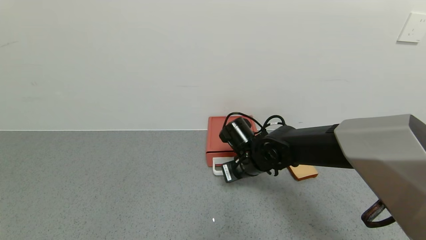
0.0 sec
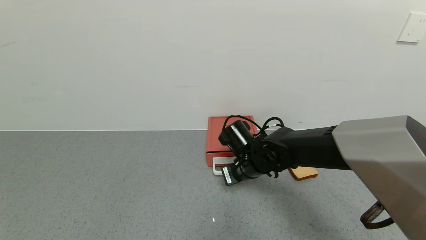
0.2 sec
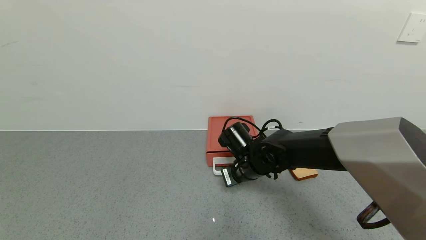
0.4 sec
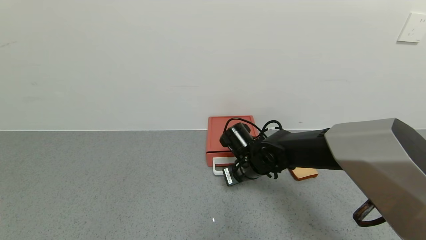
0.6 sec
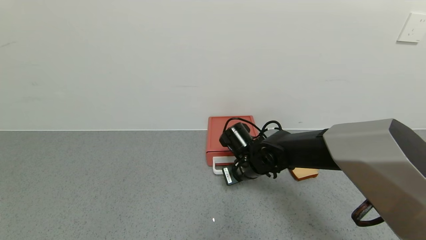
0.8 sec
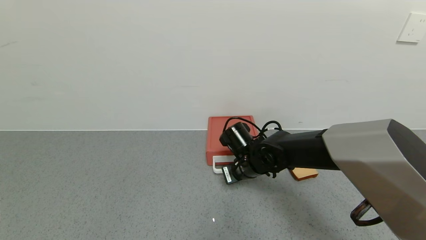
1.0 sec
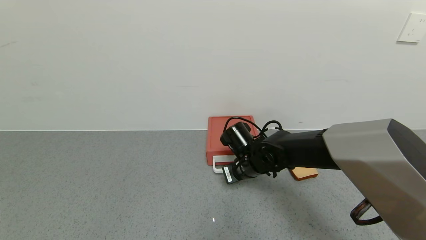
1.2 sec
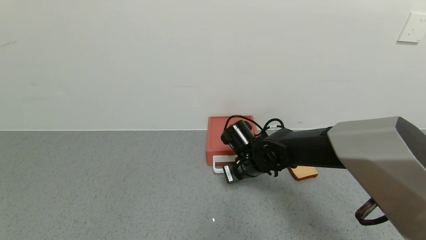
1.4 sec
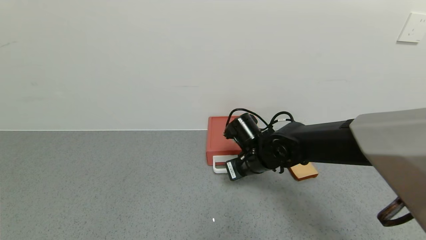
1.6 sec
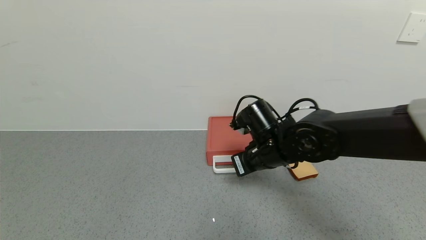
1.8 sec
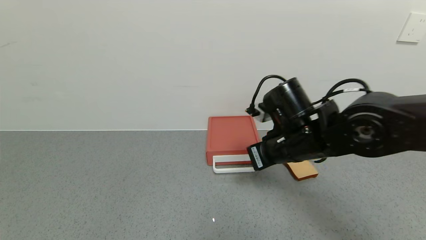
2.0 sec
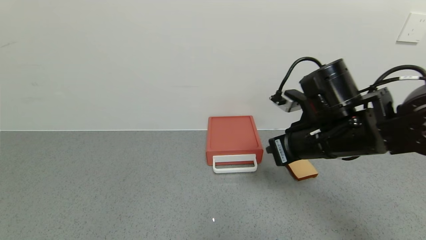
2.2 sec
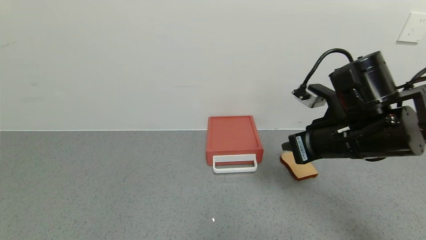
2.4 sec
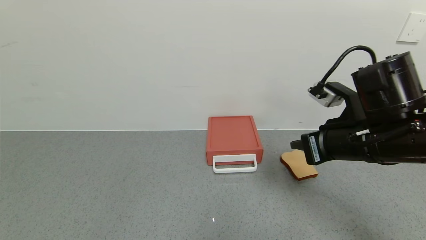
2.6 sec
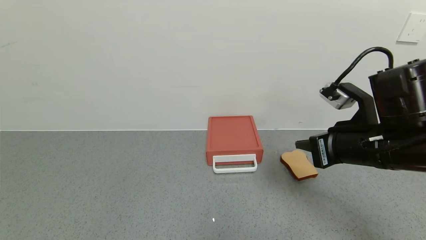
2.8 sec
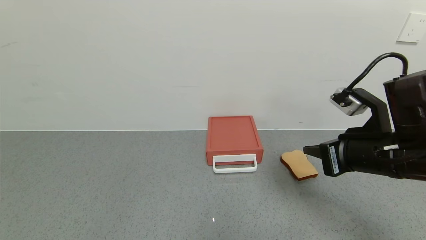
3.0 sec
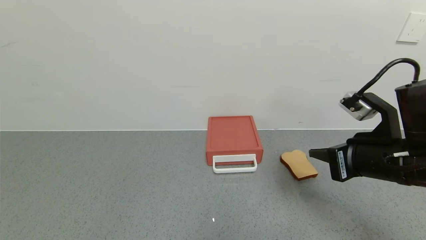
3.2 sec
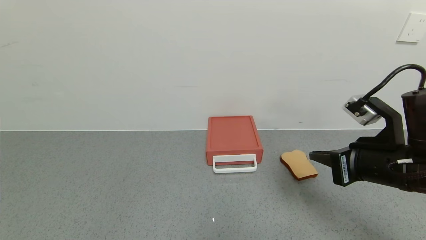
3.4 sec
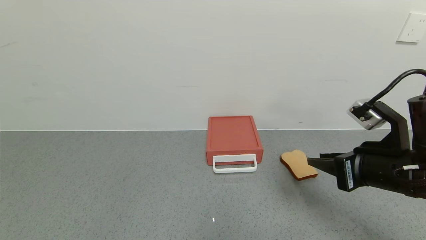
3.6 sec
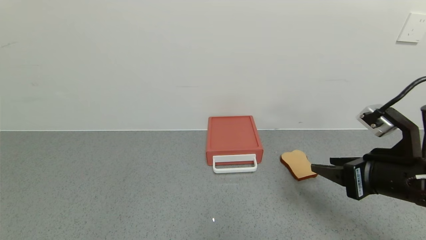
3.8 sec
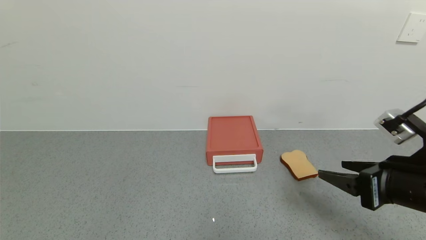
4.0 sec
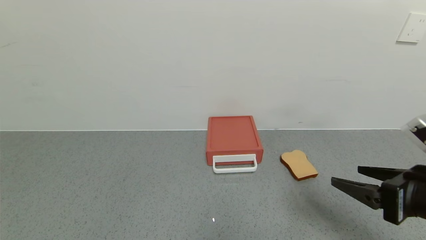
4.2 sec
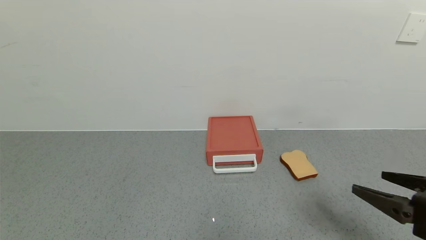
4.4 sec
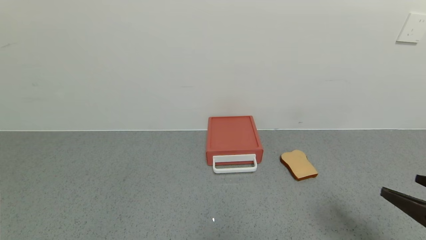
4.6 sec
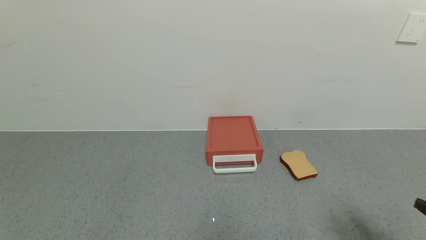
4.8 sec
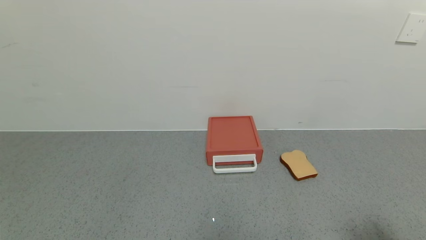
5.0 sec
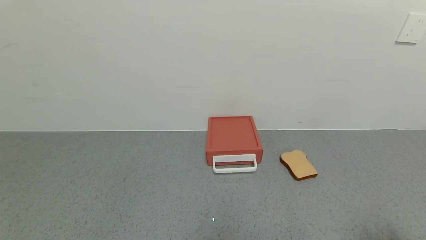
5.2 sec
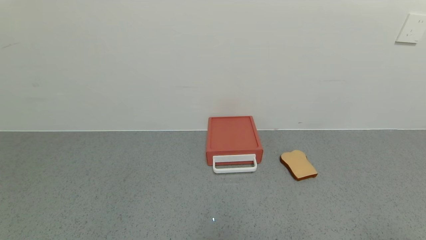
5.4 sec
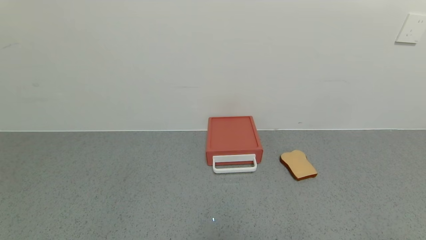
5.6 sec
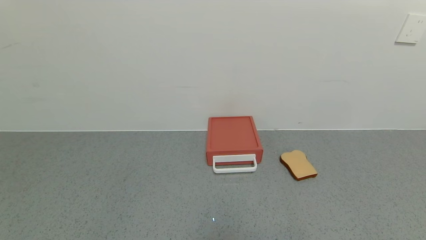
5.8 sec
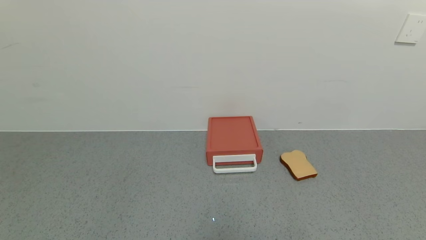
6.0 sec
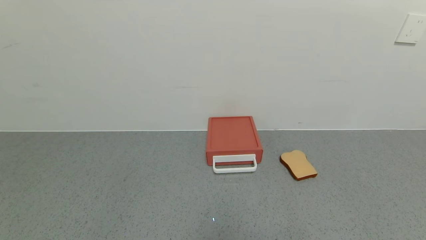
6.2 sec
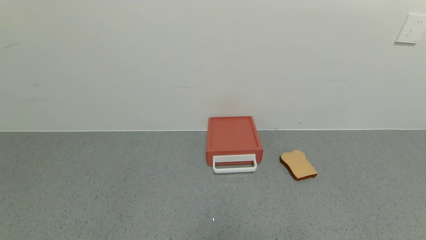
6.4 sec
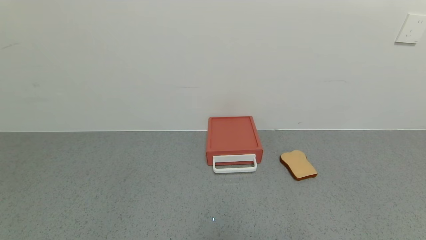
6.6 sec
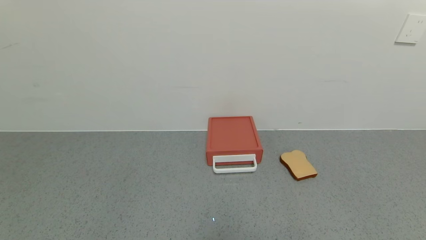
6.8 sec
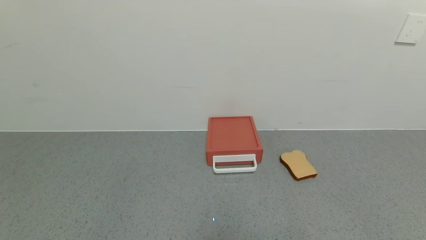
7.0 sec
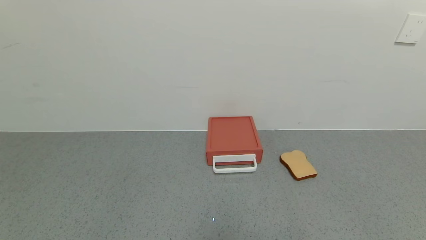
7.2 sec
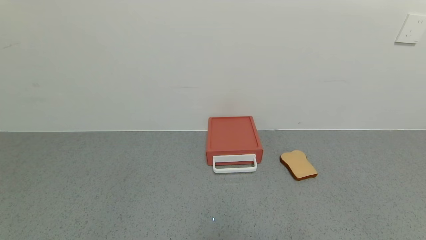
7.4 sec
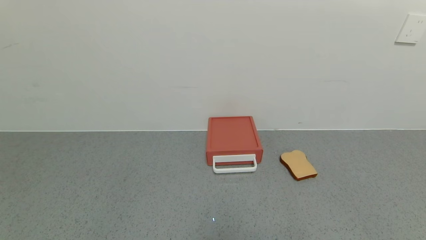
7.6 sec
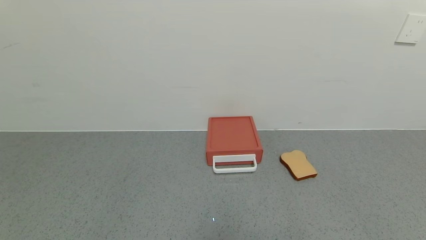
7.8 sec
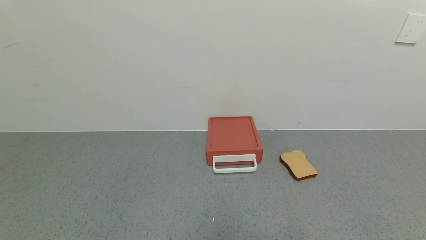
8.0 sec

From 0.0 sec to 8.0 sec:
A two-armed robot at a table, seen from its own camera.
Task of the whole recording: use the gripper to open the drawer and close the red drawer.
From 0.0 sec to 1.6 sec: The grippers move only a little.
From 1.6 sec to 3.2 sec: The right gripper moves to the right, backward and upward, some 25 cm.
From 3.2 sec to 4.8 sec: The right gripper heads backward and to the right, covering roughly 20 cm, and opens up.
From 4.8 sec to 6.4 sec: The right gripper is displaced backward and downward by roughly 15 cm.

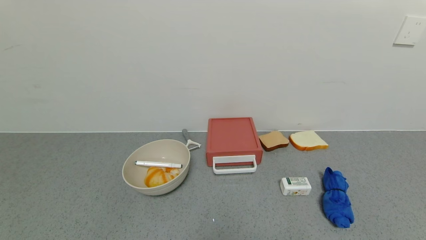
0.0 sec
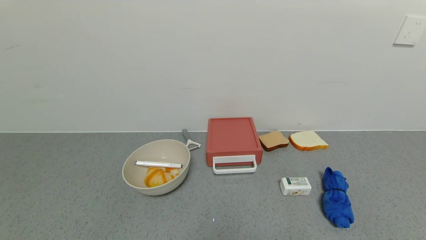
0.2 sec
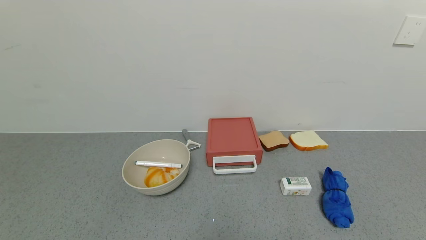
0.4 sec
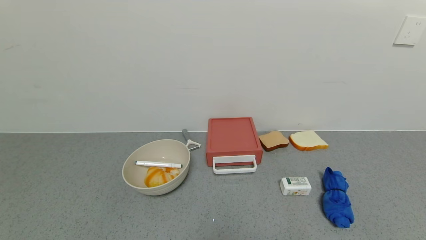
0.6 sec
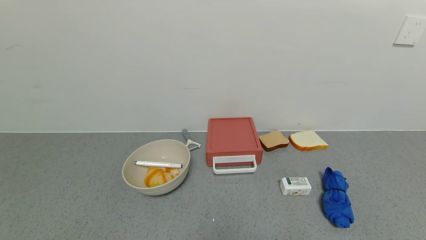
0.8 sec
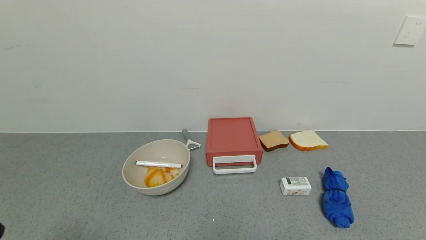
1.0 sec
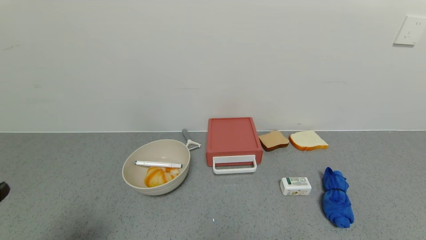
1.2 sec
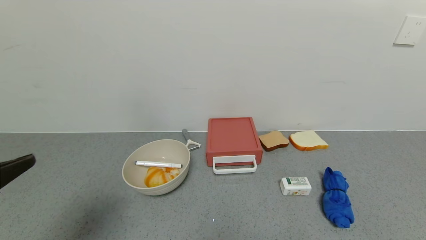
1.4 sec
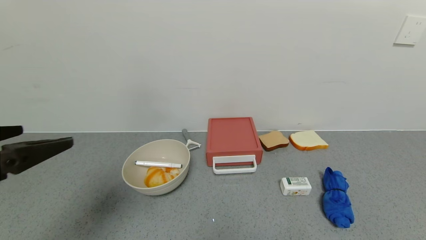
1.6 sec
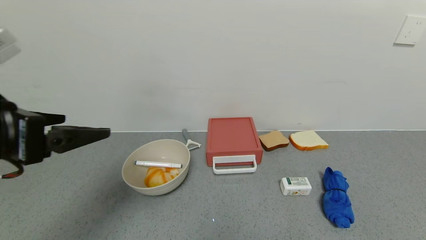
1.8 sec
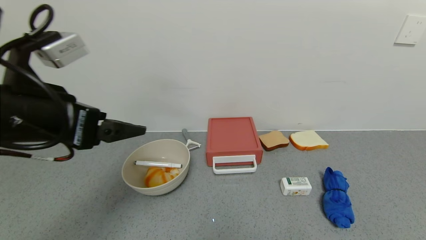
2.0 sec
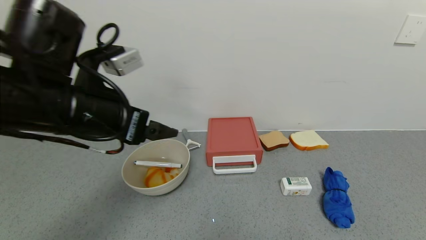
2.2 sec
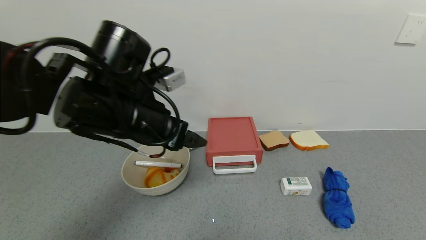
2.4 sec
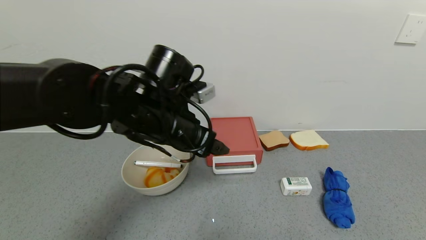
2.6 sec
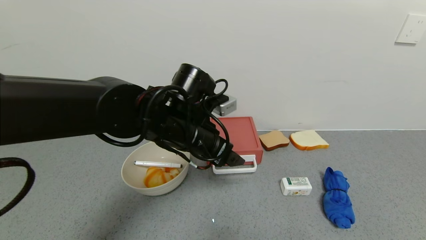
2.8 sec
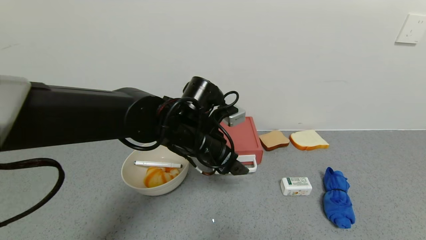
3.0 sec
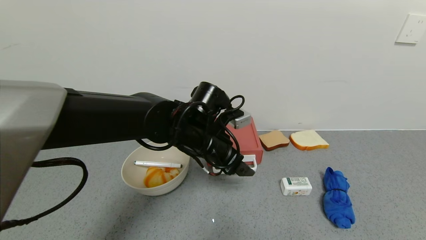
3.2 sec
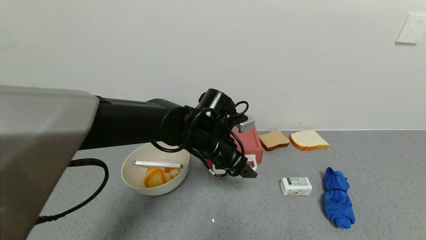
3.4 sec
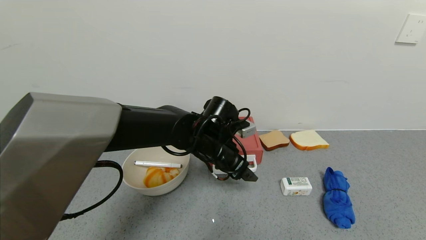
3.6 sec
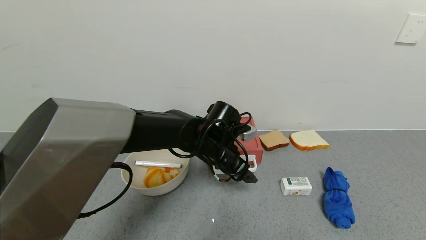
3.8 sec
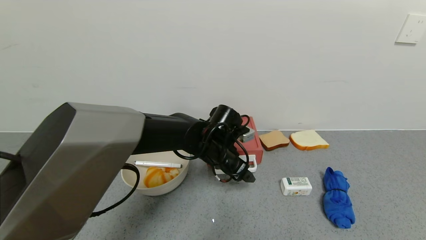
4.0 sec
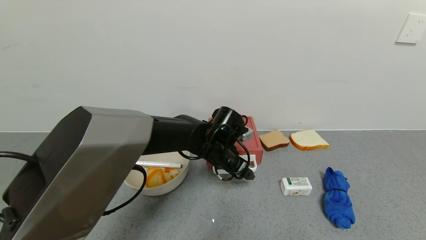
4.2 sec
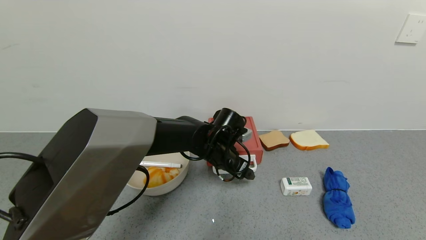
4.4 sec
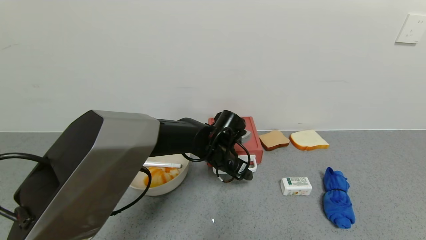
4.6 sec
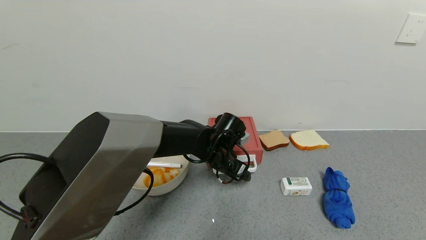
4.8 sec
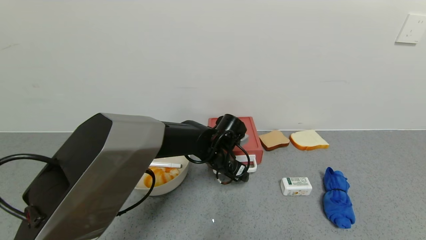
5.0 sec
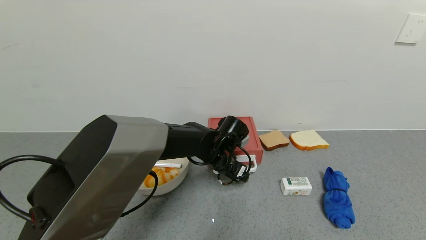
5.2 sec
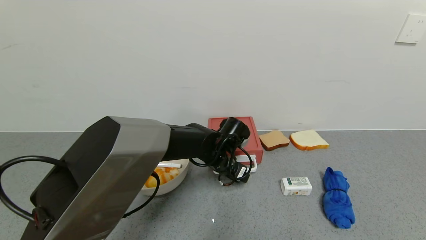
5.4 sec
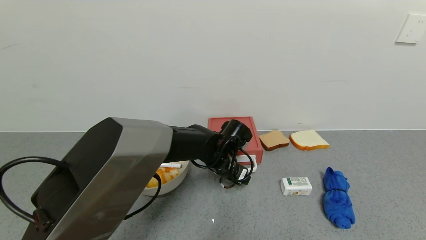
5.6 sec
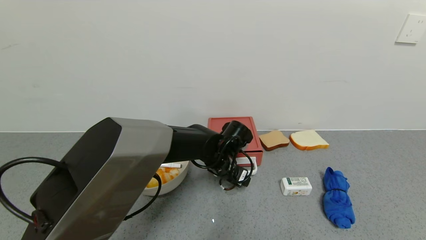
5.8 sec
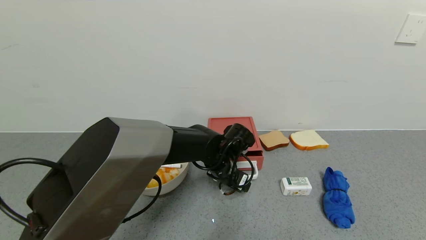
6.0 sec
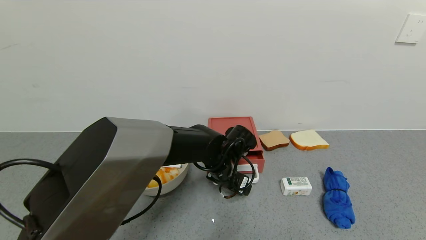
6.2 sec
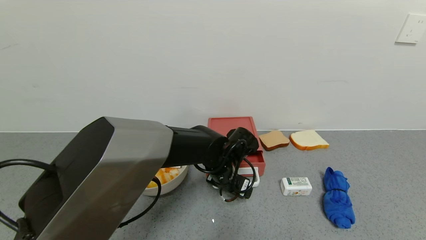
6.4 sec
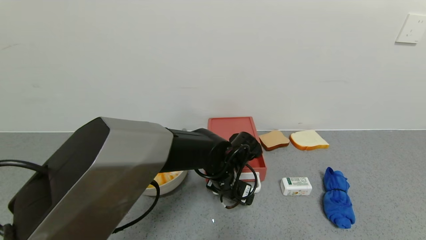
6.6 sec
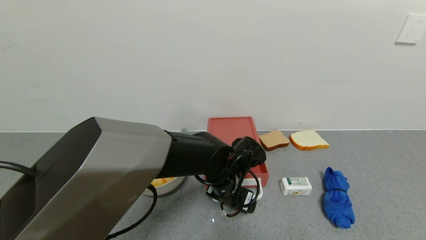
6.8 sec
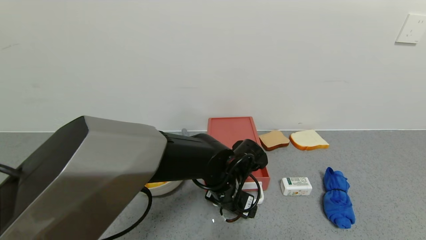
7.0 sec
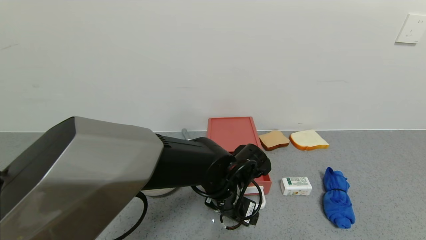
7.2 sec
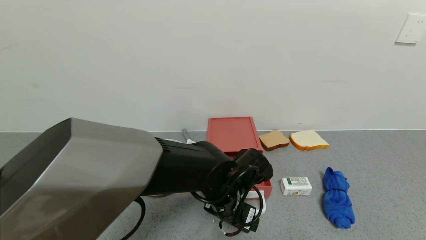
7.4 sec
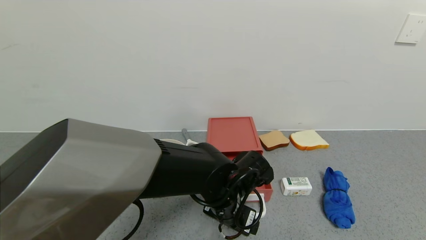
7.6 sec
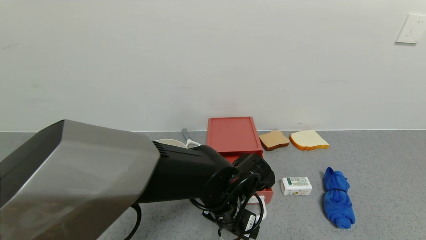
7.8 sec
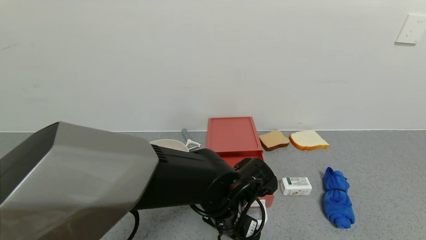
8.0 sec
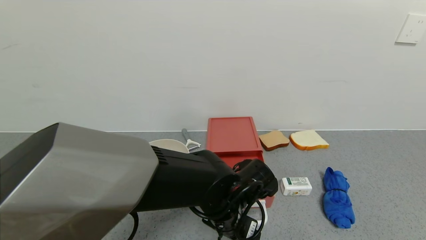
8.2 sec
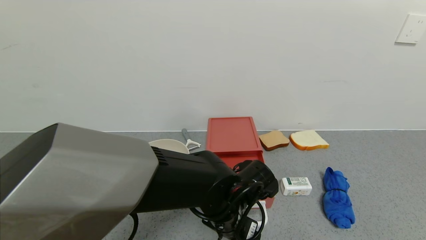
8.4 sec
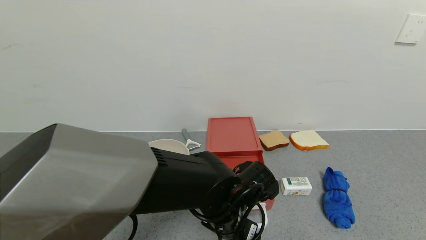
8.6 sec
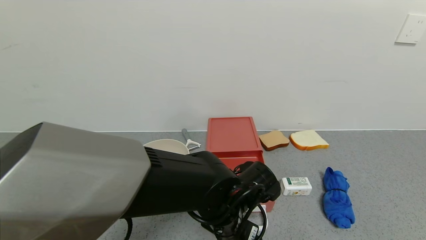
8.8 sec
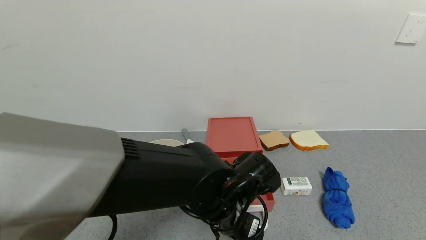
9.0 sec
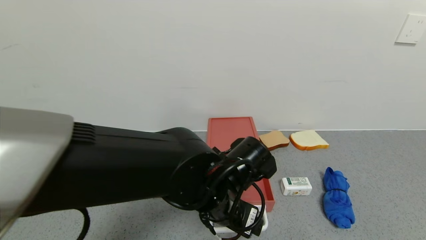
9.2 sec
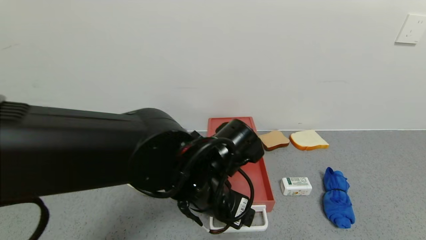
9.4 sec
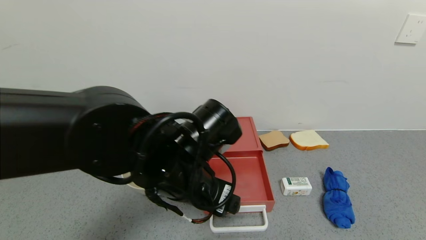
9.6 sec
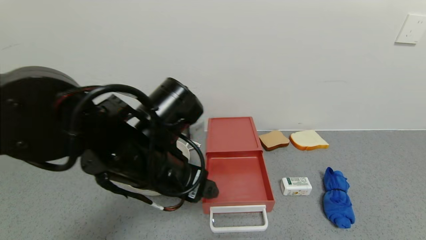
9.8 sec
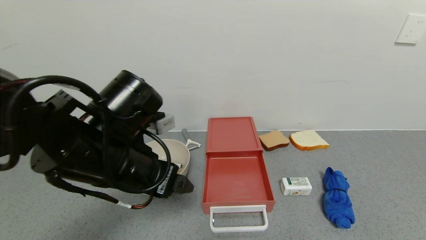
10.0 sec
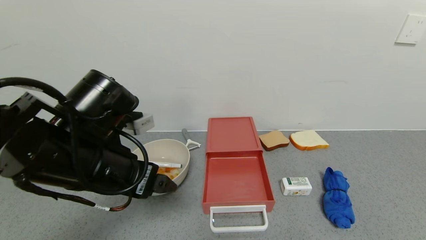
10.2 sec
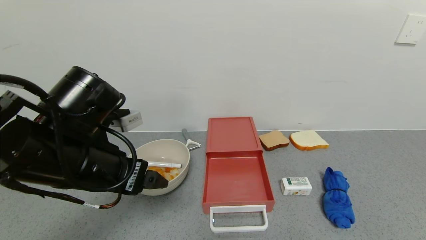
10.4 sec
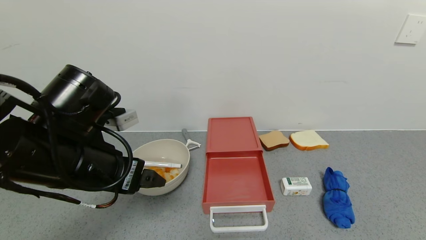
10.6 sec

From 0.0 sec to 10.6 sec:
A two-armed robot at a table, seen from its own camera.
Task of the whole recording: use the gripper to open the drawer and close the red drawer.
Step, from 0.0 sec to 9.2 sec: Open the red drawer with the left gripper.
From 0.0 sec to 1.6 sec: The left gripper travels upward and forward by about 25 cm.
From 1.6 sec to 3.0 sec: The left gripper heads to the right, forward and downward, covering about 30 cm.
From 3.0 sec to 4.6 sec: The left gripper goes about 10 cm downward and forward.
From 4.6 sec to 6.0 sec: There are only small adjustments of the grippers.
From 6.0 sec to 7.6 sec: The left gripper is displaced backward by roughly 10 cm.
From 7.6 sec to 9.0 sec: There are only small adjustments of the grippers.
From 9.0 sec to 10.6 sec: The left gripper heads to the left and upward, covering approximately 20 cm.
